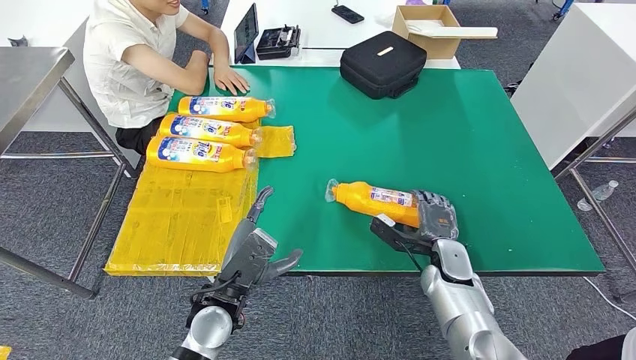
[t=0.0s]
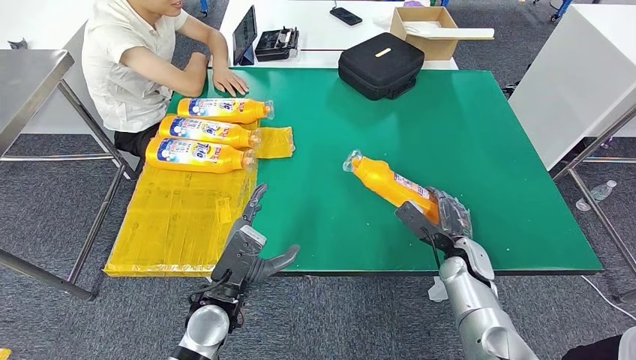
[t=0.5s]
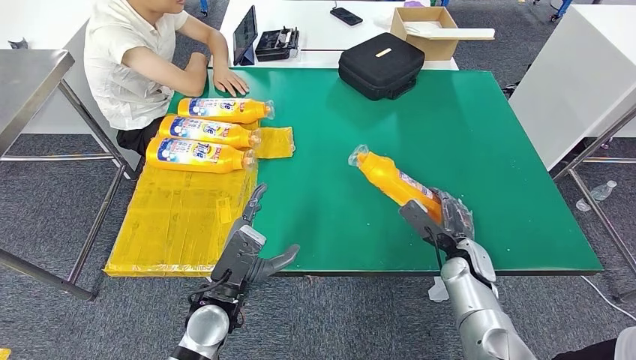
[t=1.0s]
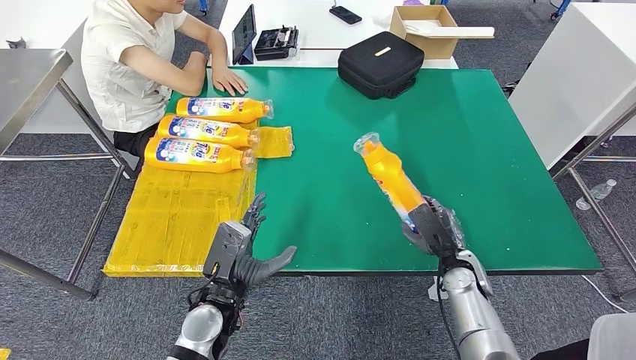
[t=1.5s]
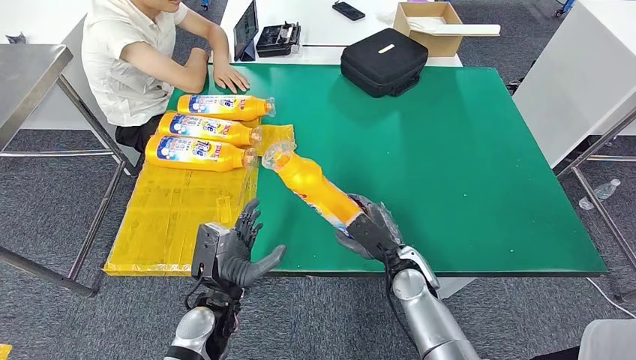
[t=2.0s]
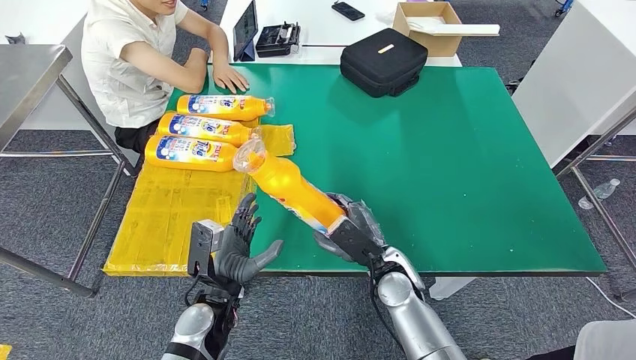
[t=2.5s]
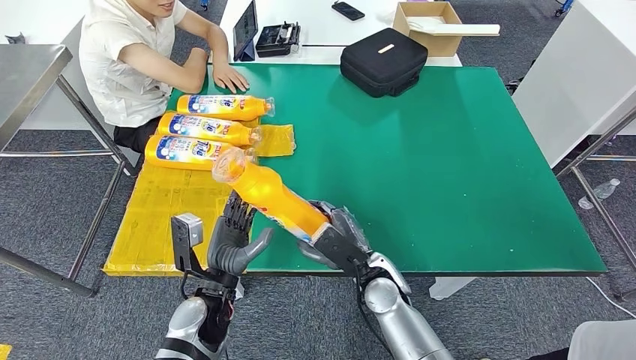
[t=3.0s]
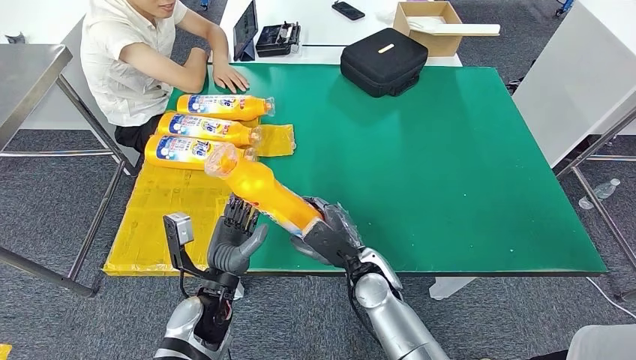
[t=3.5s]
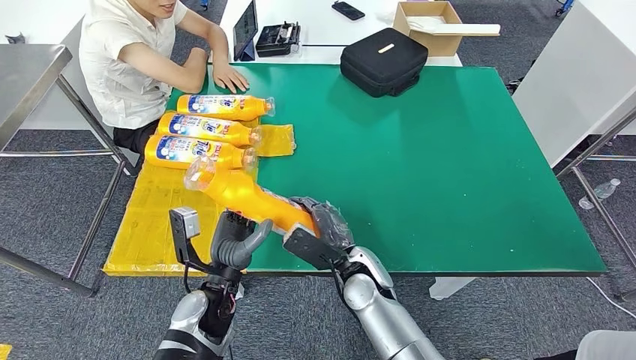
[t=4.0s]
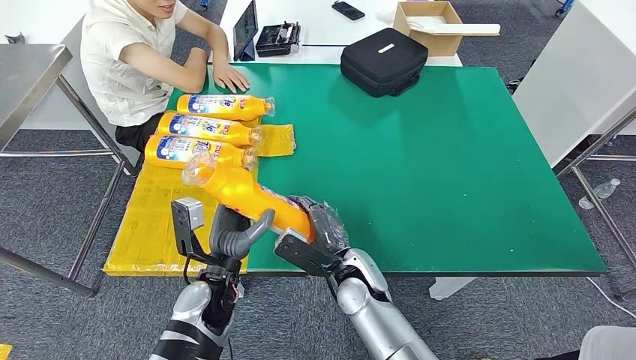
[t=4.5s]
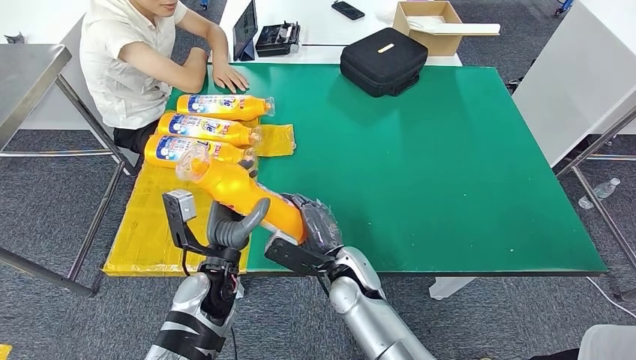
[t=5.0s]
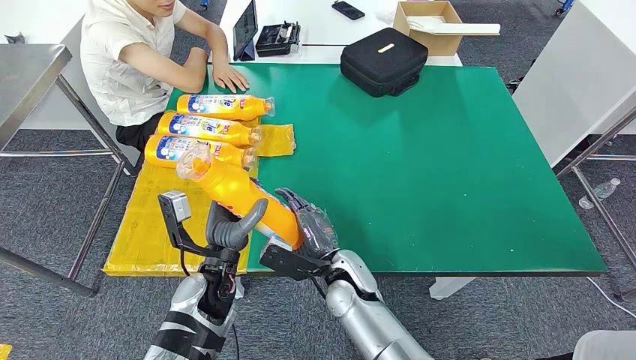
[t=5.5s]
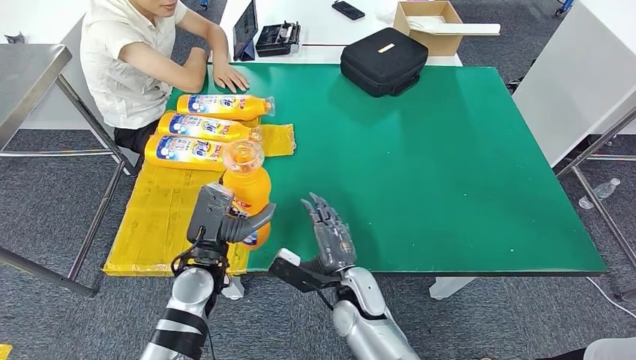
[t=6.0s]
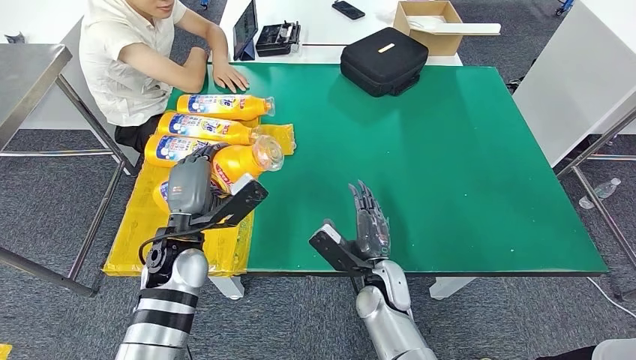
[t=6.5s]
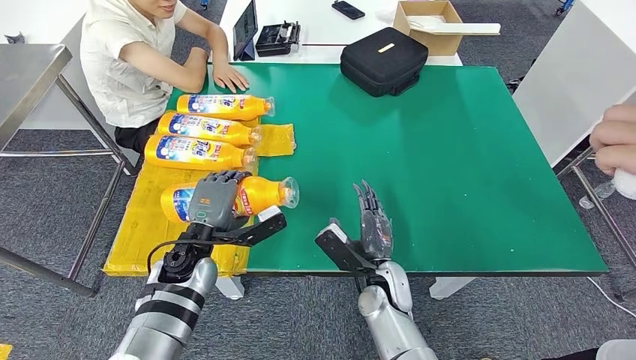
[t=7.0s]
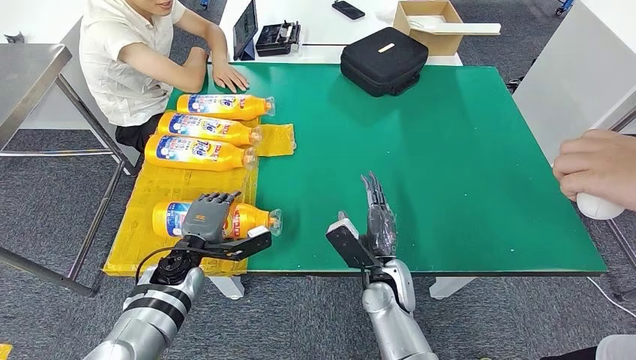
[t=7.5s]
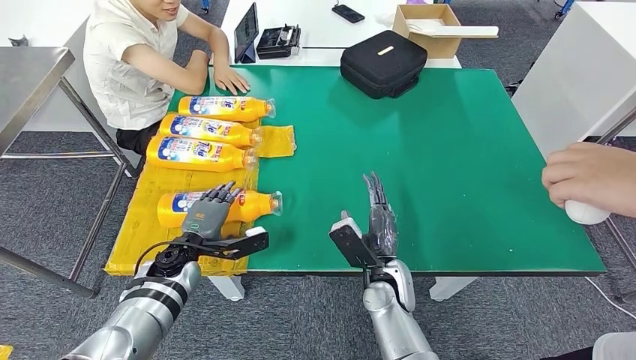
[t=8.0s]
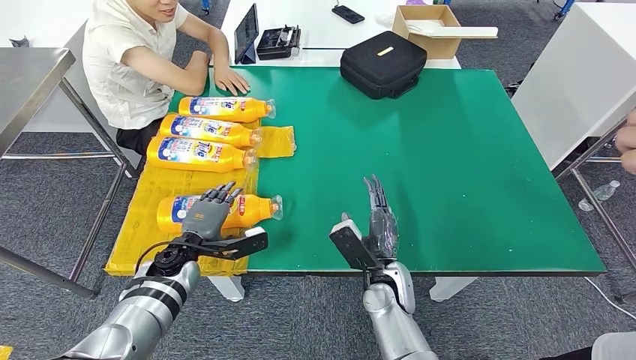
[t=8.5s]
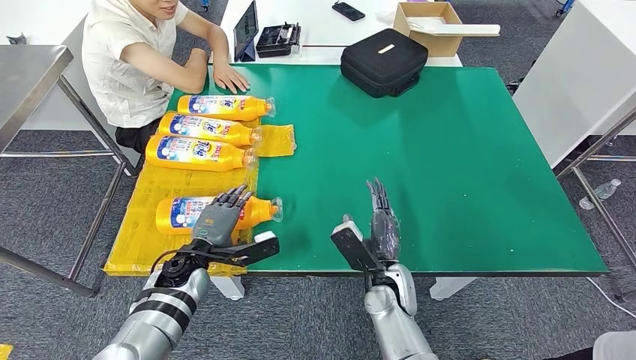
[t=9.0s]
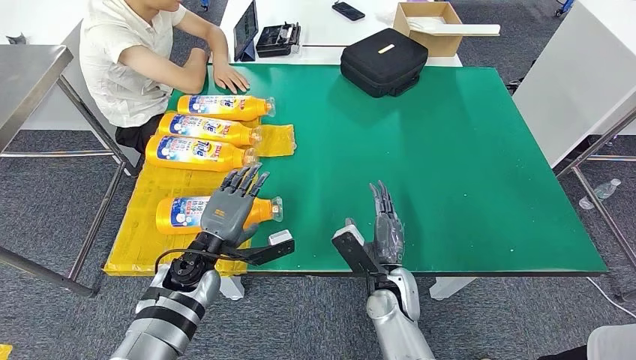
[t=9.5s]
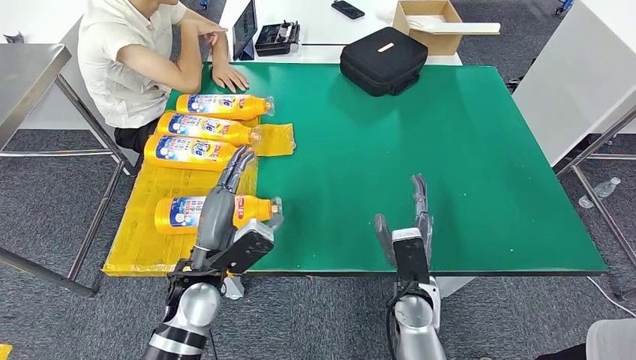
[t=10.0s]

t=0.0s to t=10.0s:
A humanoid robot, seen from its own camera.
Step, t=2.0s to t=10.0s: Flip the bottle to face forward.
t=0.0s to t=2.0s: The right hand moves to the left, roughly 10 cm.
t=2.0s to t=4.0s: The right hand heads to the left, covering approximately 10 cm.
t=4.0s to t=6.0s: The left hand shifts by approximately 5 cm.

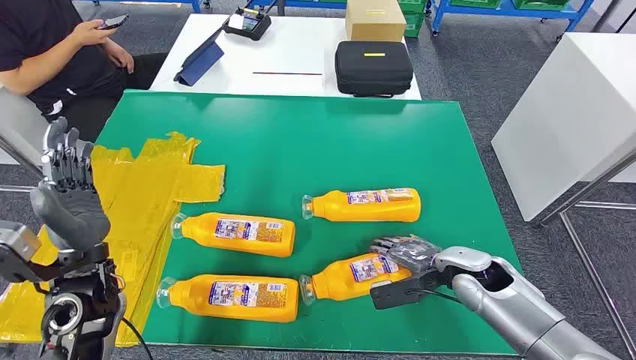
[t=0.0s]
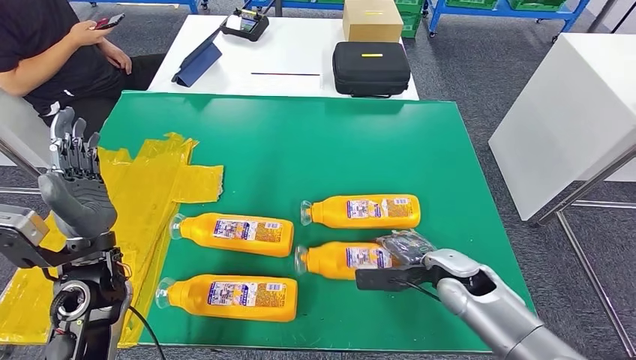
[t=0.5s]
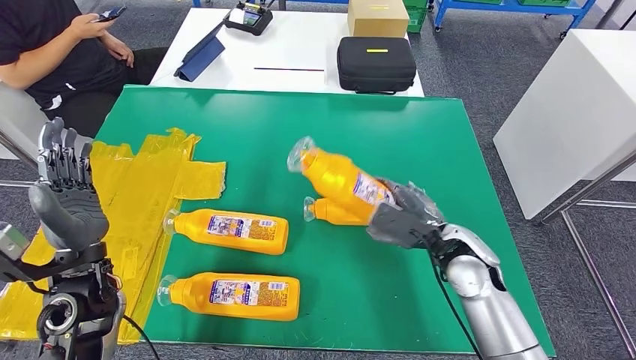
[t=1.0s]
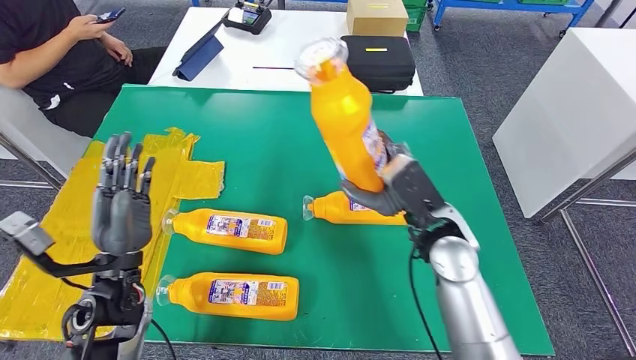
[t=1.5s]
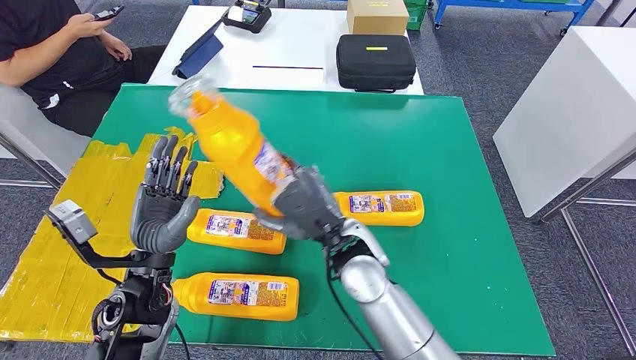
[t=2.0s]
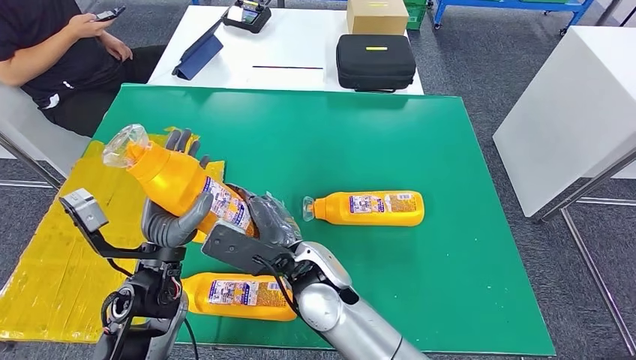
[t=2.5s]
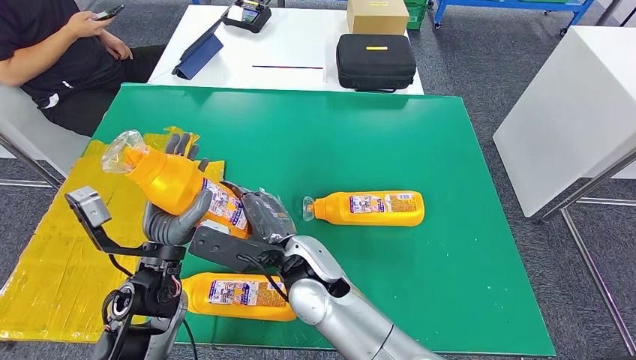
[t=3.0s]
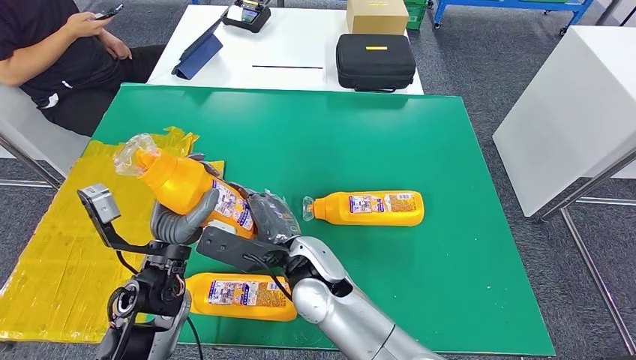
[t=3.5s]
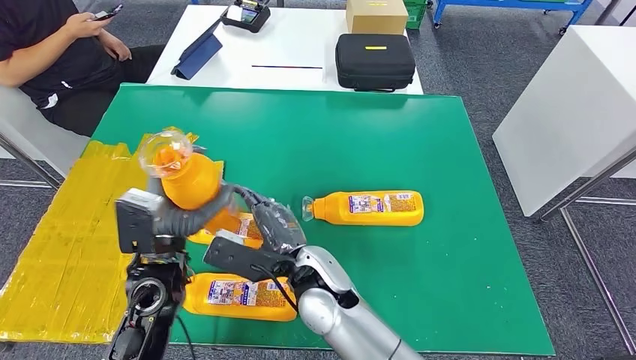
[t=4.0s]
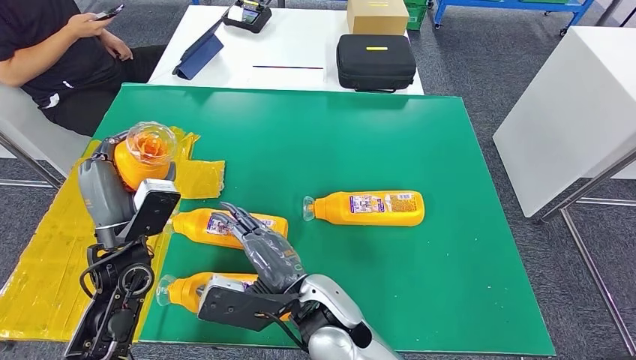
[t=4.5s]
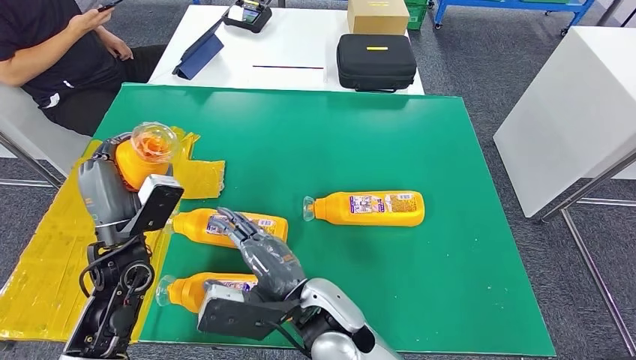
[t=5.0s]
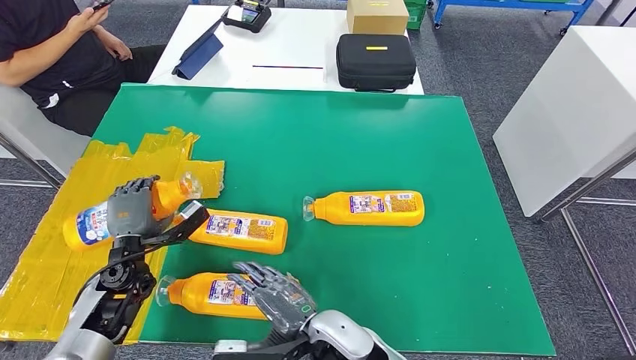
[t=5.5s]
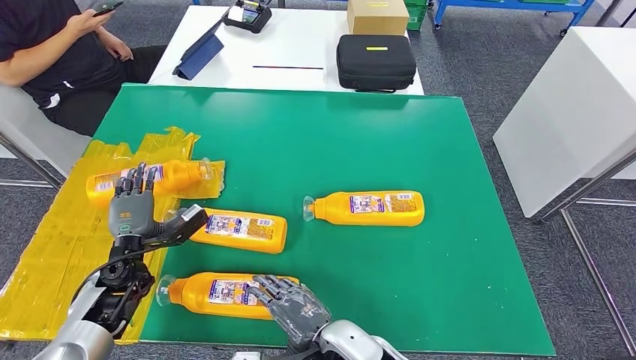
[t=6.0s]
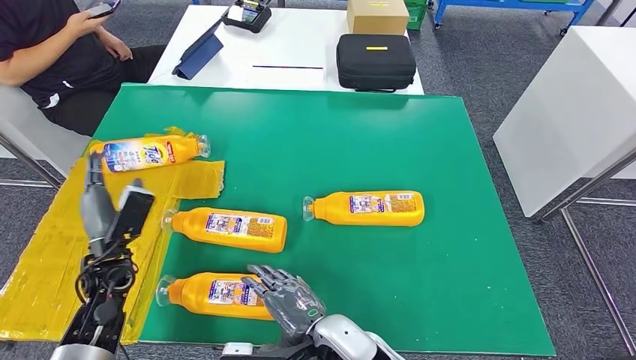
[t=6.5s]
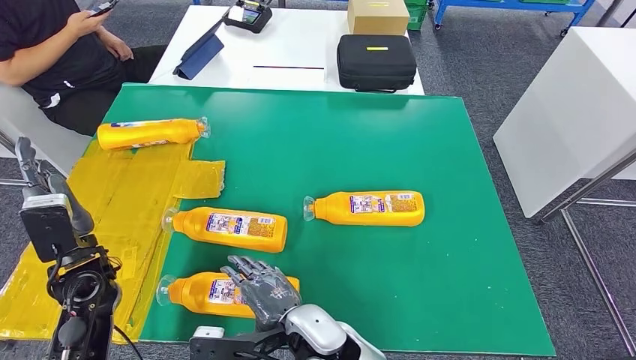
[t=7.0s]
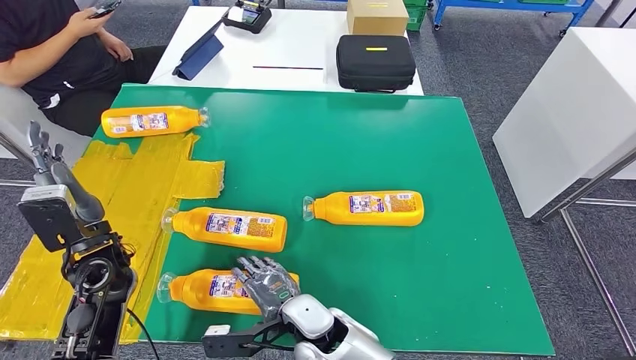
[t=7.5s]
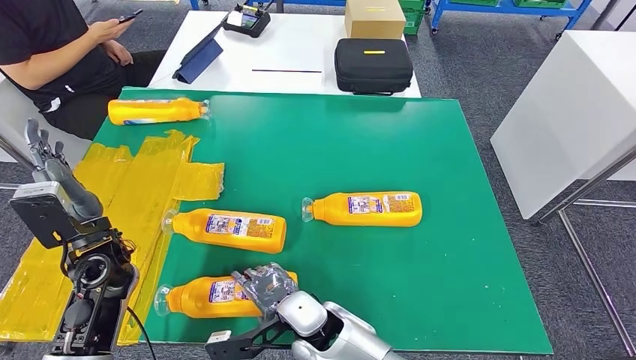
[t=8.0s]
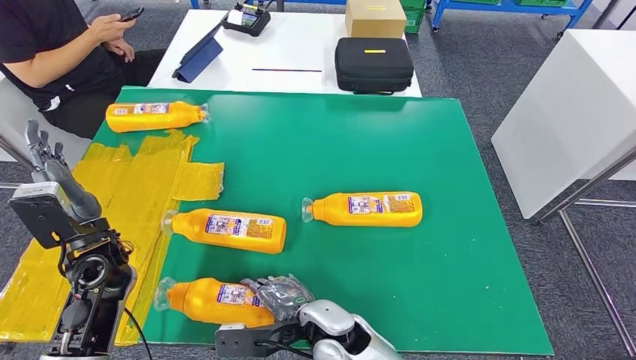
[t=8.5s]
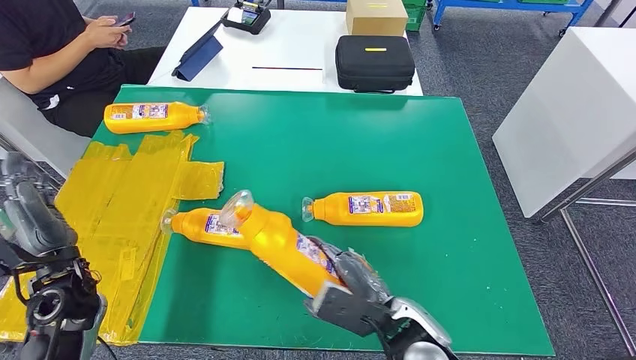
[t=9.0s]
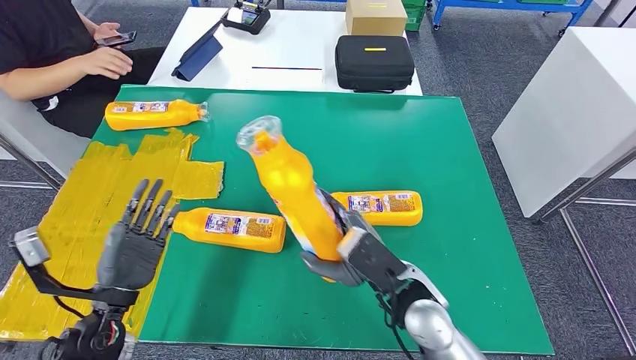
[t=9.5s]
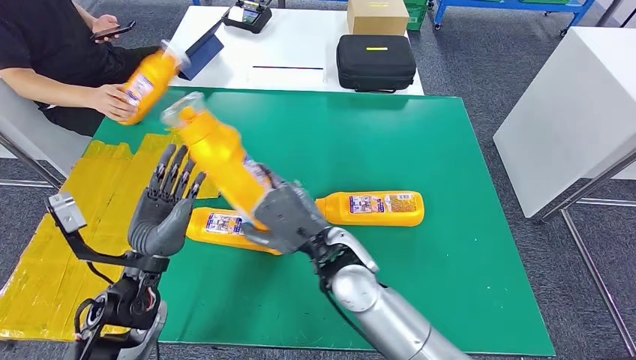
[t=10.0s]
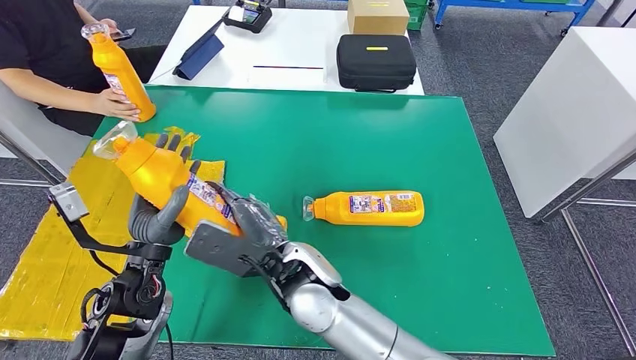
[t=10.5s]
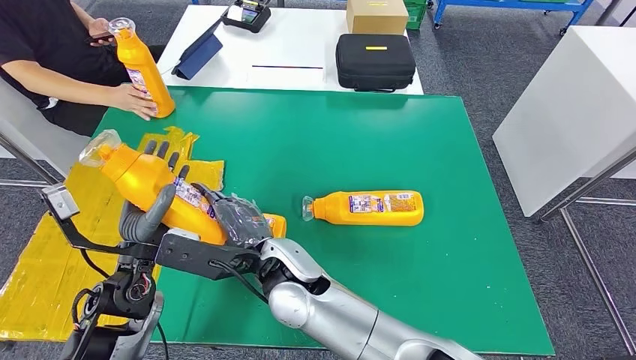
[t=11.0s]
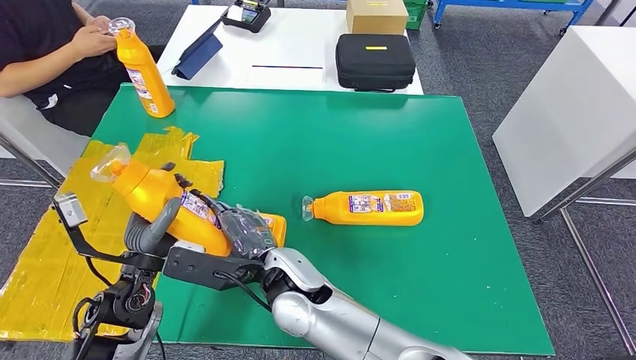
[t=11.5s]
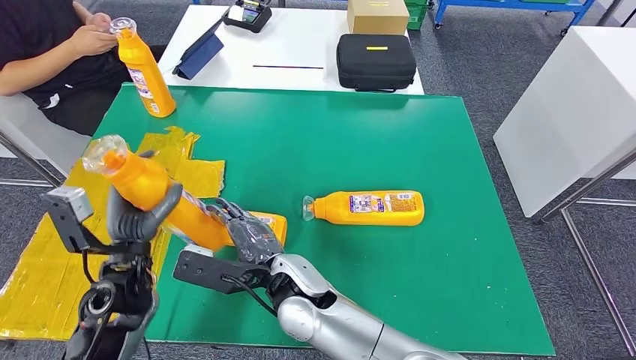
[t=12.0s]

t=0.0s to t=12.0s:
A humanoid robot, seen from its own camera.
Step, t=0.0s to t=2.0s: Take the bottle from the table.
Step, t=3.0s to t=5.5s: Flip the bottle to face forward.
Step, t=8.0s to t=9.5s: Pick up the bottle from the table.
t=4.0s to t=6.0s: The left hand goes approximately 15 cm to the left and downward; the right hand moves backward and to the right, roughly 10 cm.
